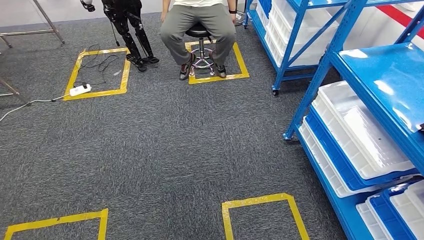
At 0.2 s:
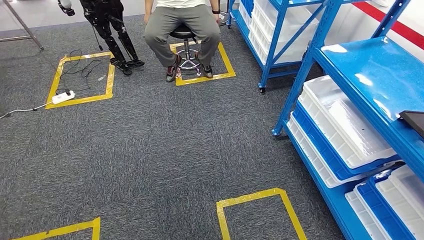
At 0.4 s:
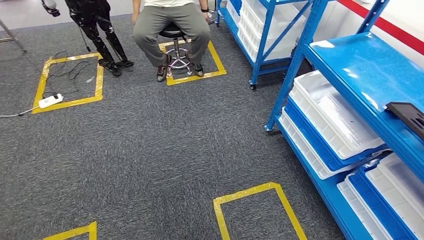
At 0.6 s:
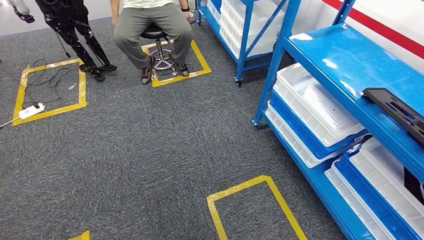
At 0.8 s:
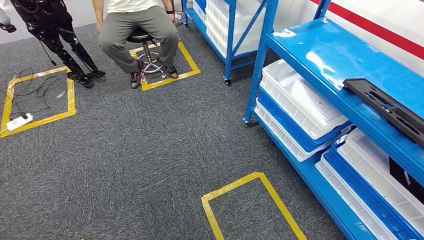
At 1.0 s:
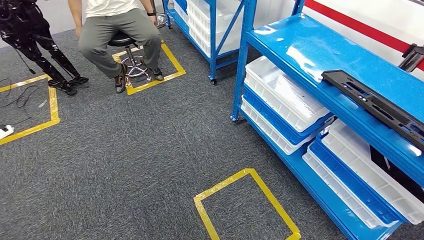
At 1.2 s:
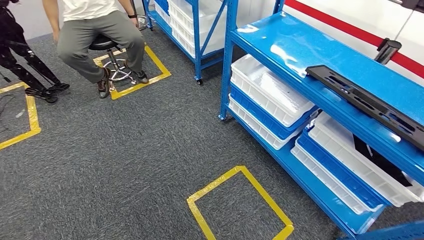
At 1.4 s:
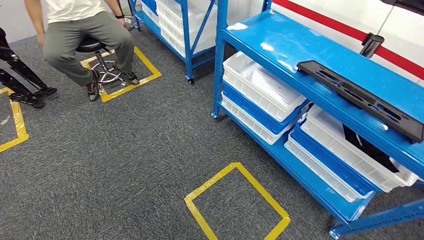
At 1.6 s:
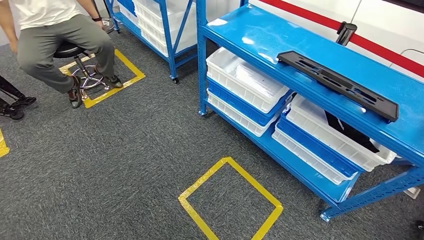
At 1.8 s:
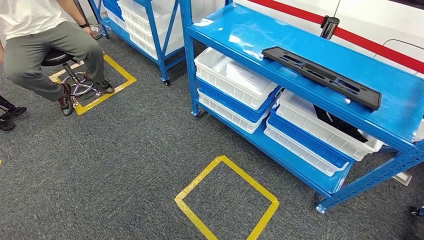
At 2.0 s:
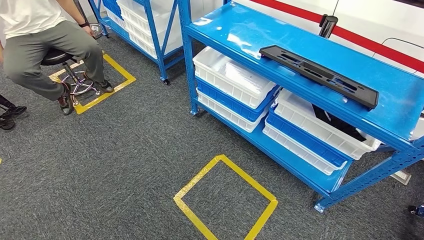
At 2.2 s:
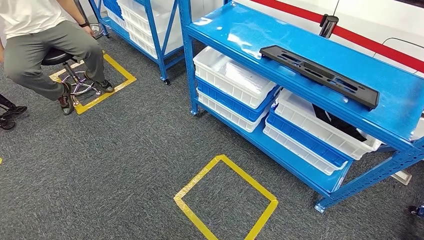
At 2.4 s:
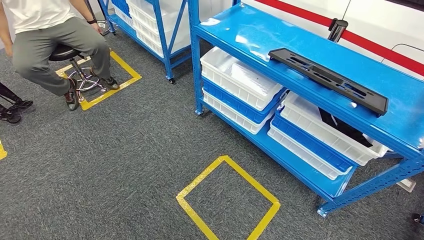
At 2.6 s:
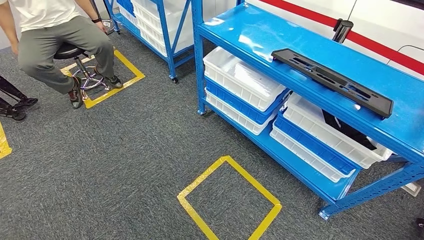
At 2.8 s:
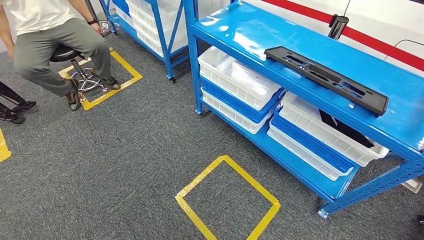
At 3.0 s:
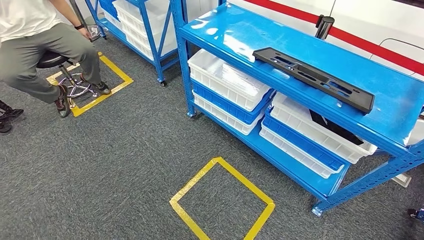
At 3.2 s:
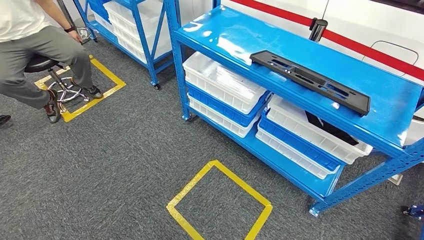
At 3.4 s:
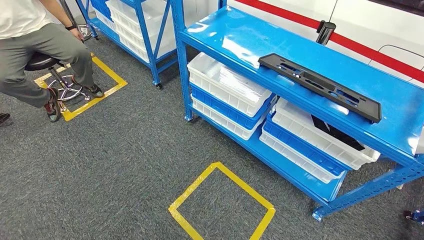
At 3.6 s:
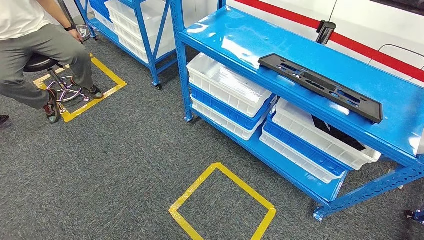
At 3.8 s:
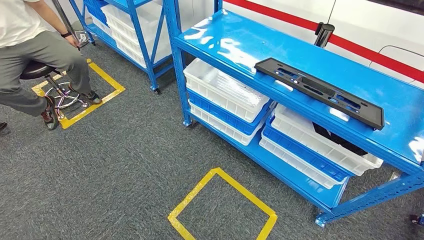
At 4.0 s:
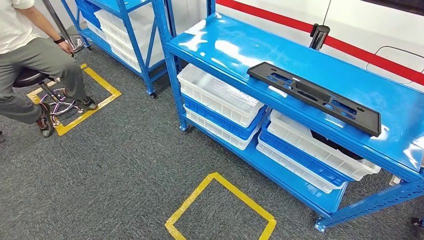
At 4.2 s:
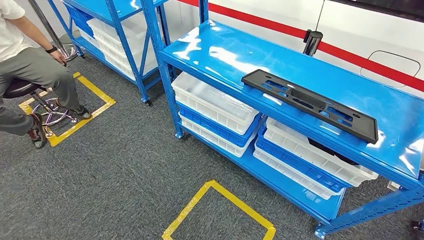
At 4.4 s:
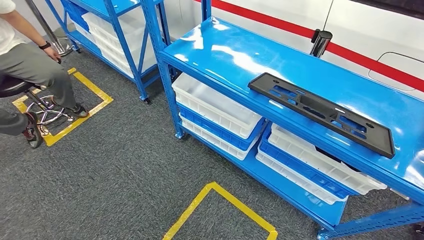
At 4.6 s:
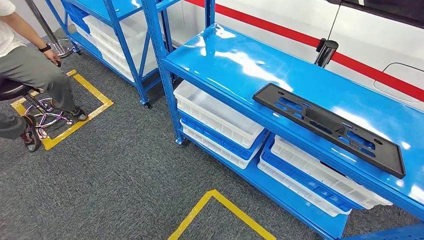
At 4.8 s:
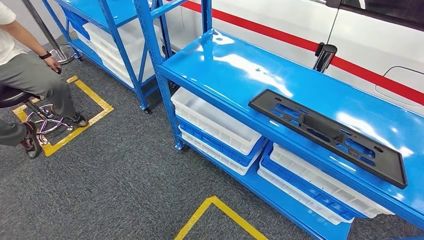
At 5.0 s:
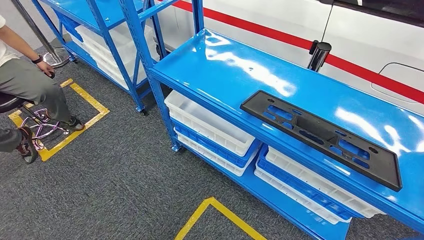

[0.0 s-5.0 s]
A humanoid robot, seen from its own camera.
Step, 0.0 to 5.0 s: Move to the initial position of the shelf.
